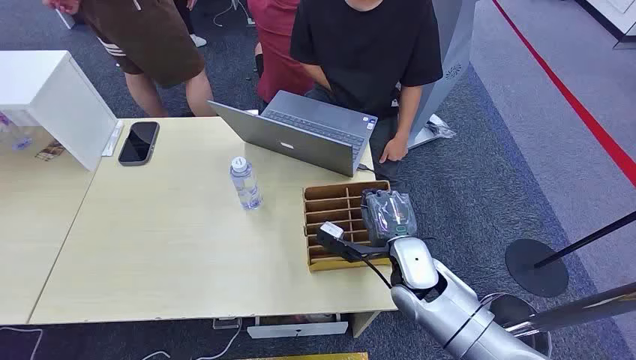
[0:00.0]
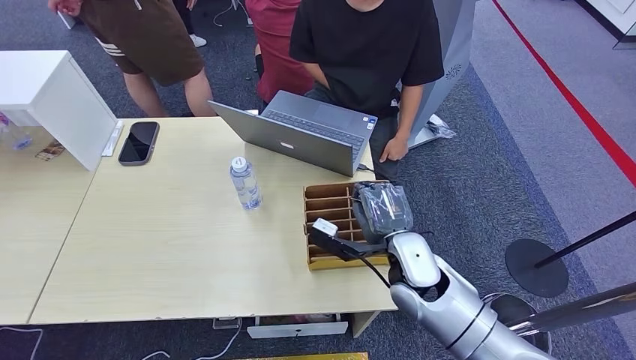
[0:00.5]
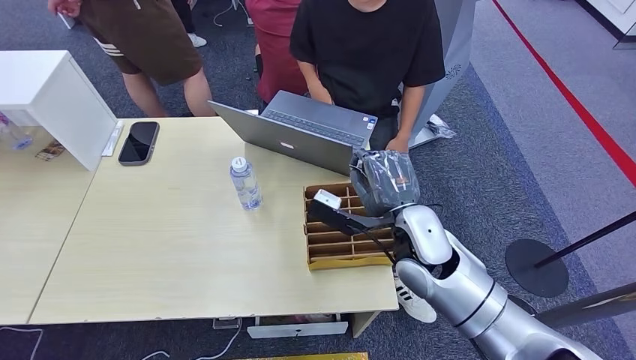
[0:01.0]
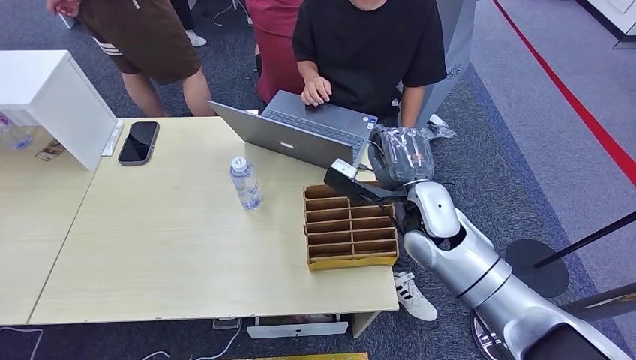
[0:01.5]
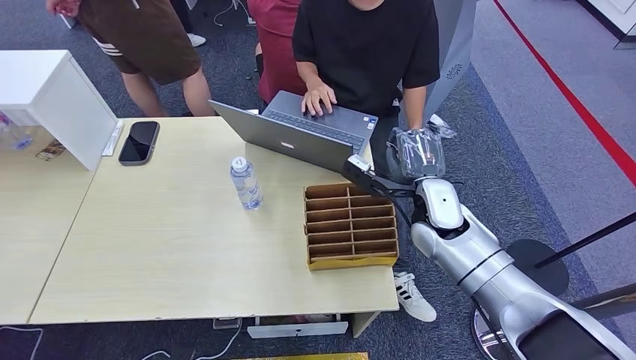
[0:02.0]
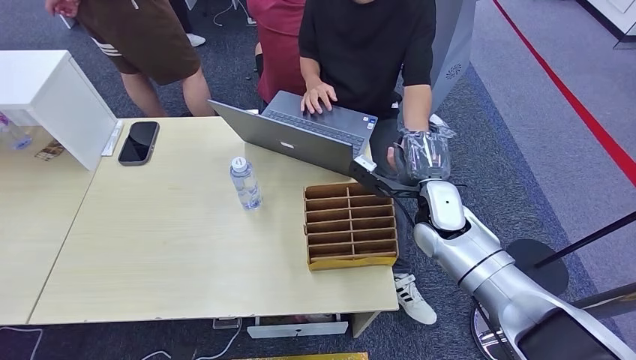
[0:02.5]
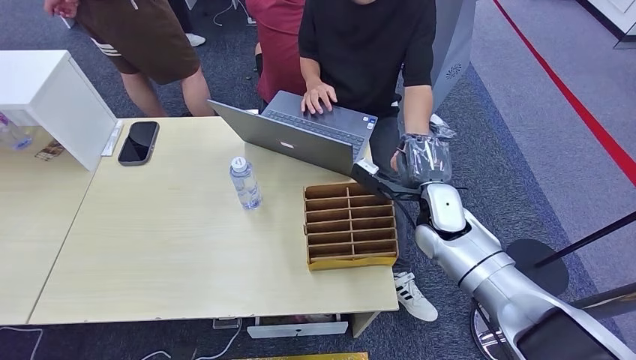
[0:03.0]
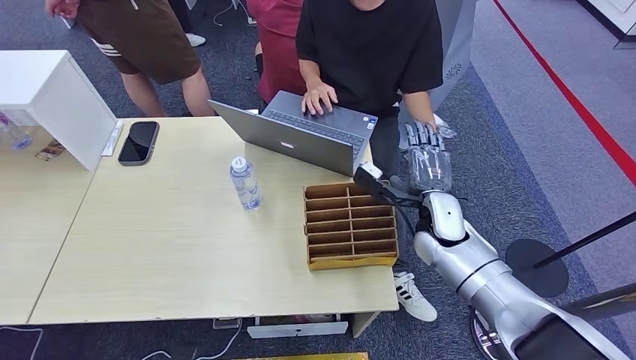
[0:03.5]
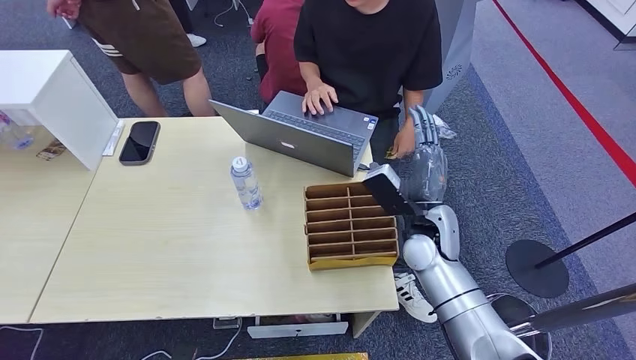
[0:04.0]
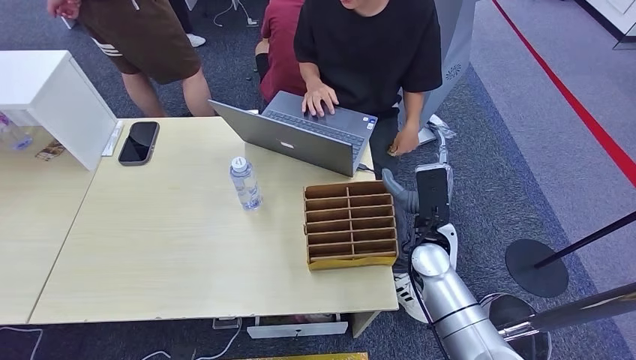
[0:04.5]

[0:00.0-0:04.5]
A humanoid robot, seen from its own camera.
Step, 0:00.0 to 0:01.5: Pick up the room card from the card holder.
Step, 0:02.0 to 0:04.5: Hand the room card to the target.
0:02.0 to 0:04.5: The right hand is displaced backward by about 5 cm.
